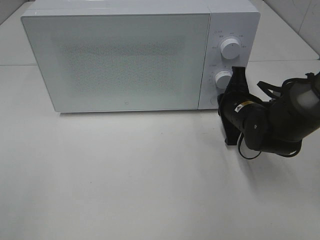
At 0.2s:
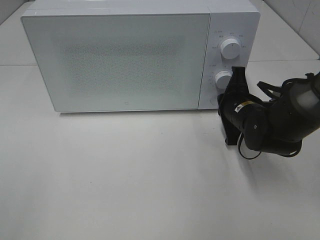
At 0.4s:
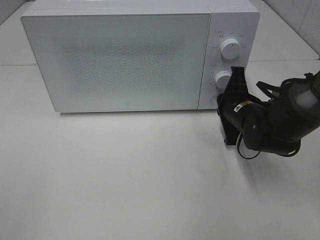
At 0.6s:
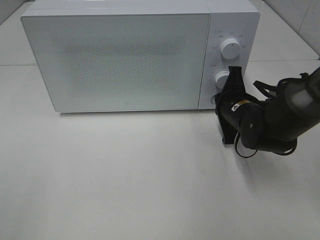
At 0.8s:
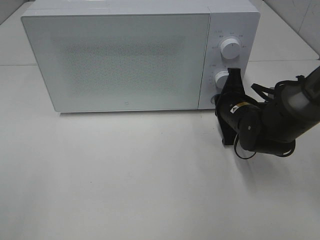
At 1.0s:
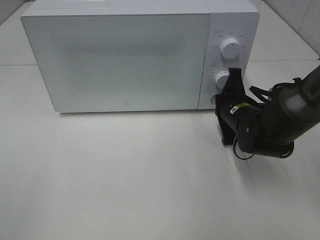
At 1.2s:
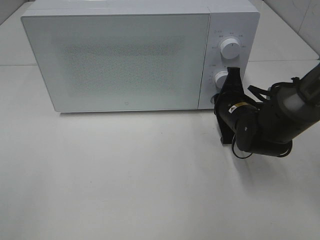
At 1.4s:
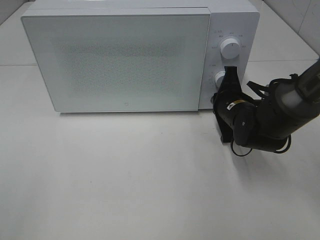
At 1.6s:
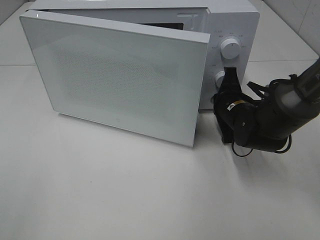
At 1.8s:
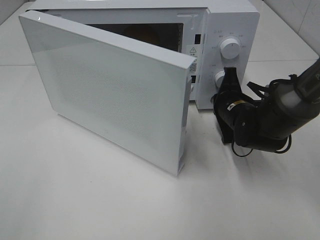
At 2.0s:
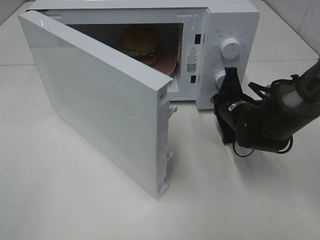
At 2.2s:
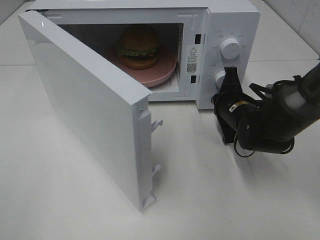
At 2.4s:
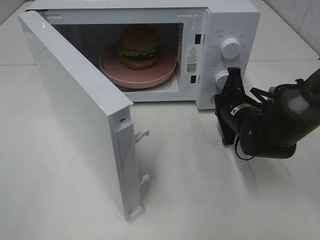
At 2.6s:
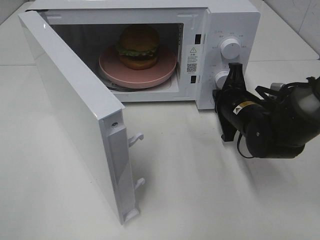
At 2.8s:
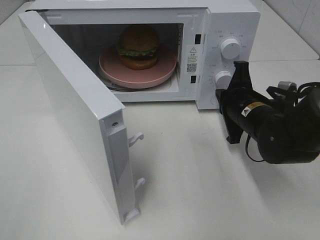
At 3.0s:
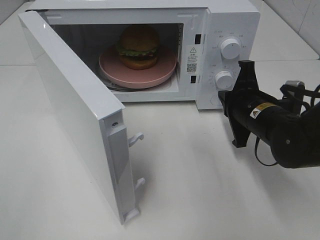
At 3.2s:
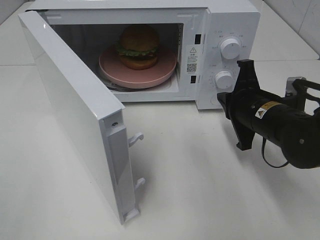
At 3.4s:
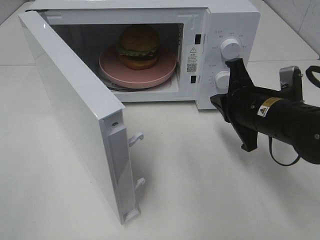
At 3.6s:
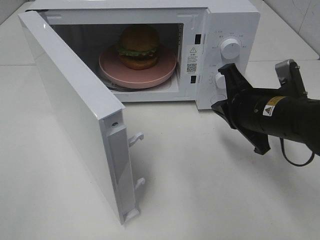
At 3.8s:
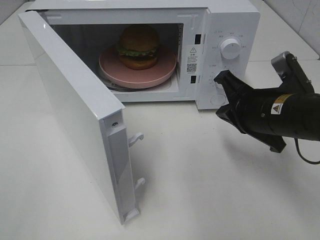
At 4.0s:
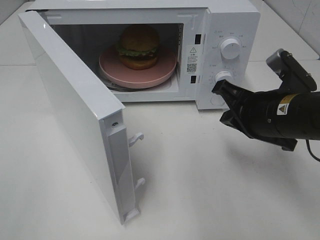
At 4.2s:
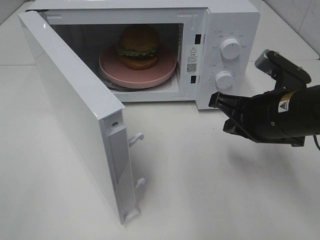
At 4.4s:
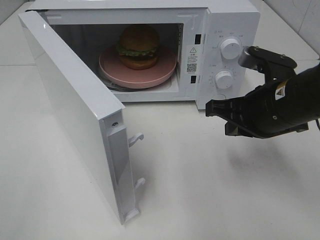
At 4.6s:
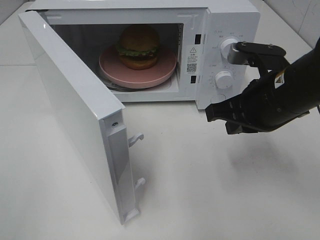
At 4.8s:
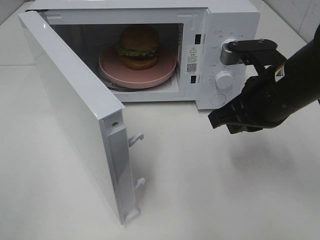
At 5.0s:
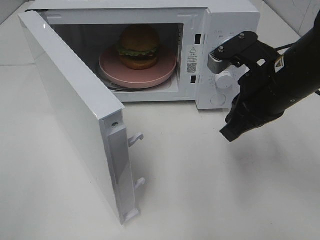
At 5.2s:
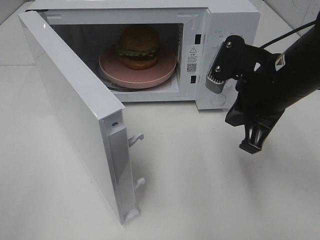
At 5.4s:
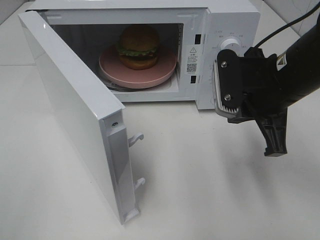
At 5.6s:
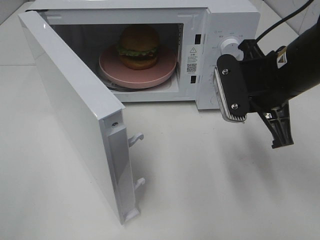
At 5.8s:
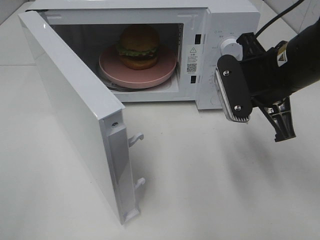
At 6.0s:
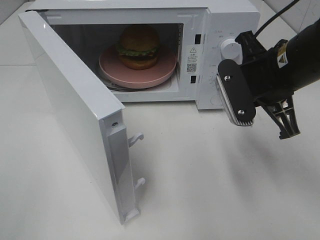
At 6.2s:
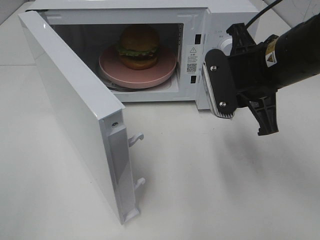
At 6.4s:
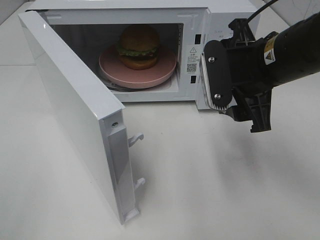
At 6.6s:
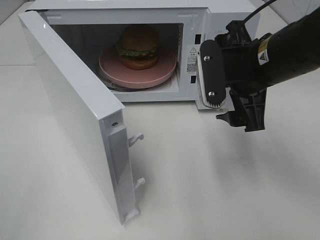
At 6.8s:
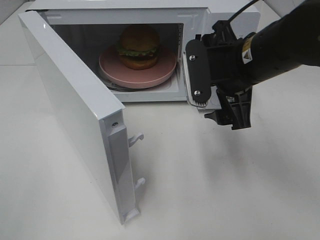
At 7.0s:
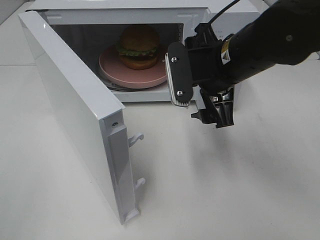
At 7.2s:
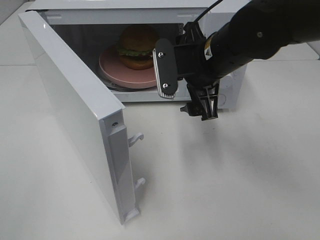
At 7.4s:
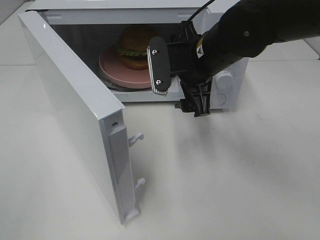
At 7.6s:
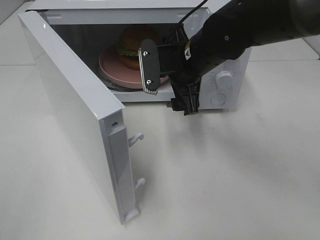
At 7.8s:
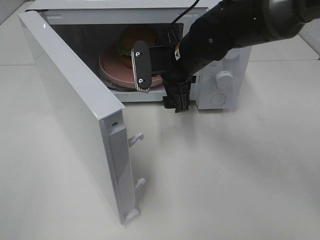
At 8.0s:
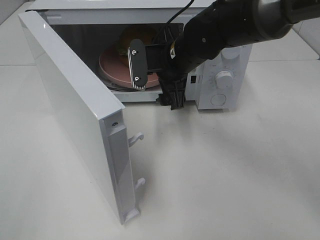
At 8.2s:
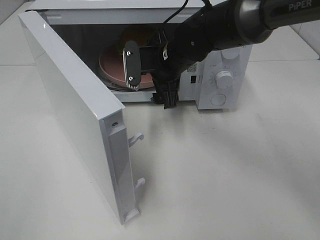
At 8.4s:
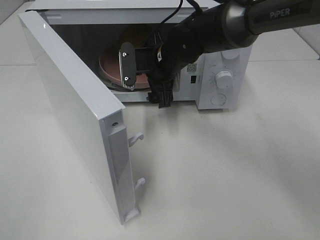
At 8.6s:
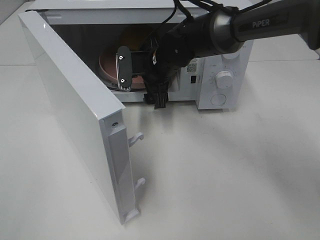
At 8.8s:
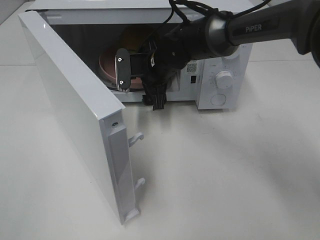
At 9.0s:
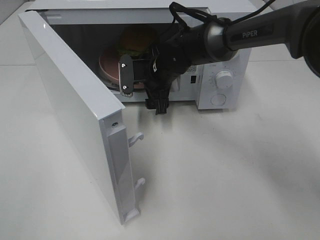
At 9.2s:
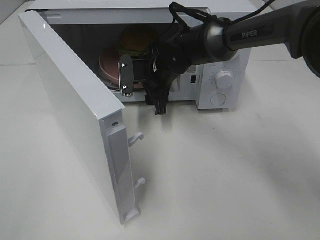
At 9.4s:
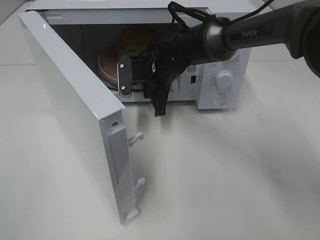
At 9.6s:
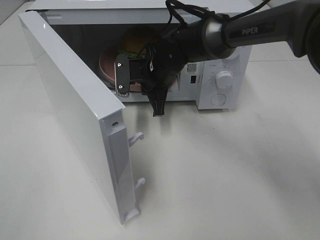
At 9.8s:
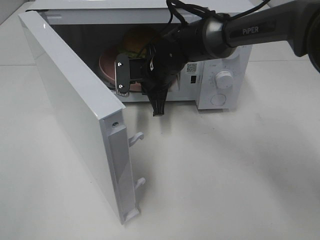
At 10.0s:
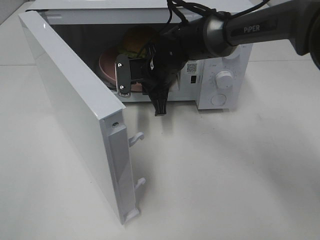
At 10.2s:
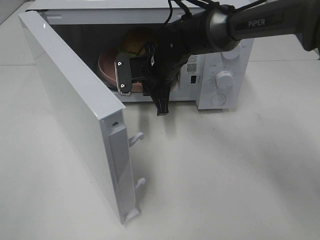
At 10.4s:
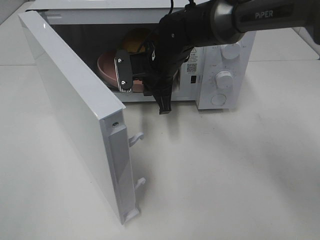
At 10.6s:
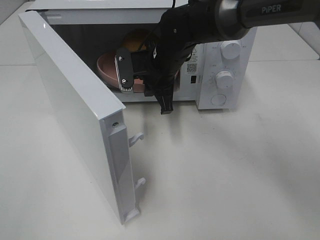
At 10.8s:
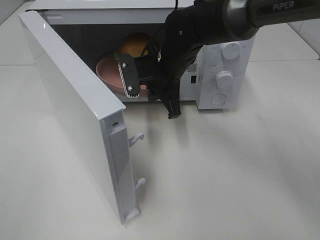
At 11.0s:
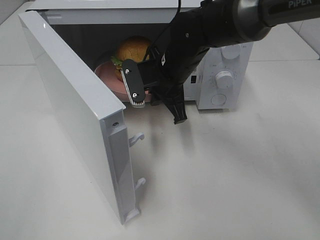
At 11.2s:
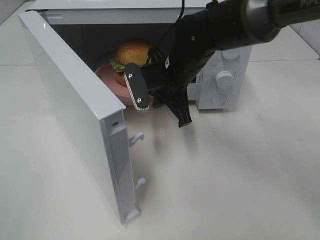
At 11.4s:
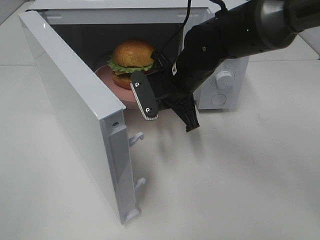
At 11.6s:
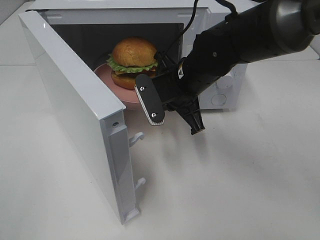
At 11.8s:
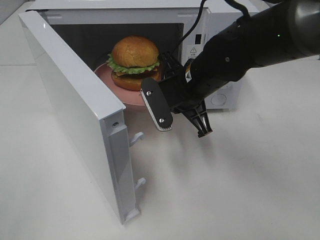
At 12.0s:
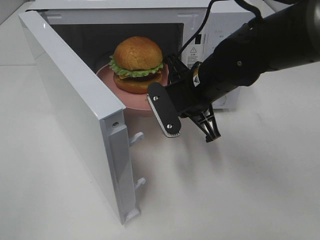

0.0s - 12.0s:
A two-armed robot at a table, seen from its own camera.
Task of the whole recording: Heat the burger.
Step, 0.0s - 2.6s: Right hand: press the switch.
Step, 2.8s - 9.6s: Right hand: grab the plate with the hamburger.
0.0s - 1.6s: The grippers make only small movements.
1.6s - 3.0s: The right gripper is displaced backward by some 5 cm.
3.0s - 4.4s: The right gripper is displaced upward by roughly 5 cm.
6.0s - 7.6s: The right gripper moves to the left and forward, roughly 15 cm, and opens up.
7.6s - 9.0s: The right gripper travels forward and downward by some 10 cm.
9.0s - 10.4s: The right gripper closes.
10.4s - 12.0s: The right gripper goes some 10 cm backward and to the right.

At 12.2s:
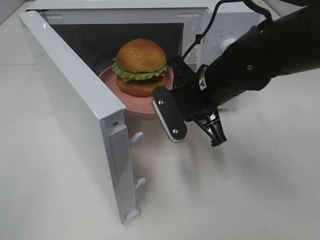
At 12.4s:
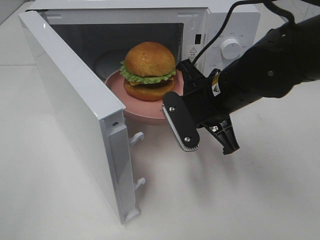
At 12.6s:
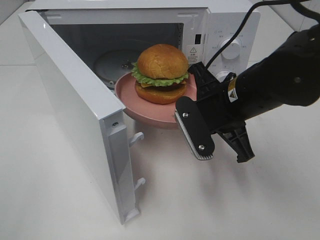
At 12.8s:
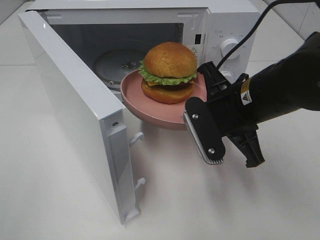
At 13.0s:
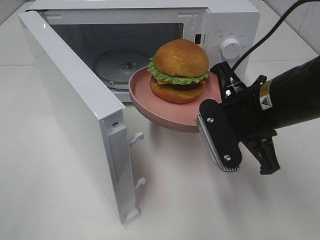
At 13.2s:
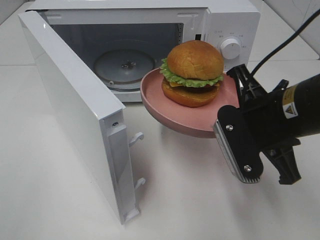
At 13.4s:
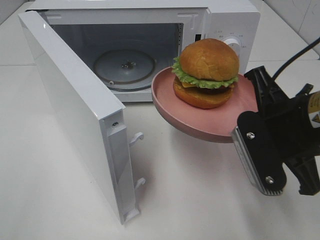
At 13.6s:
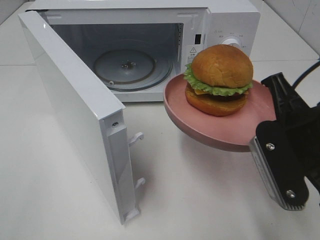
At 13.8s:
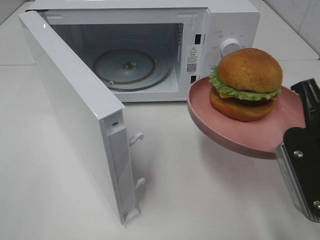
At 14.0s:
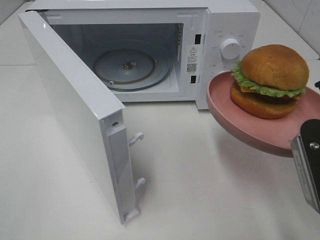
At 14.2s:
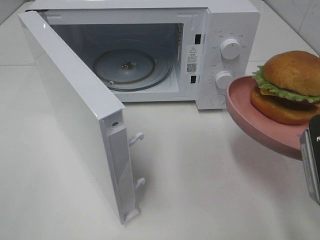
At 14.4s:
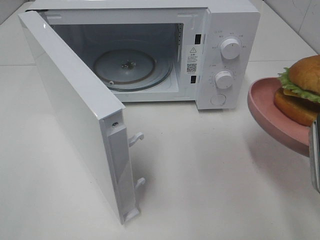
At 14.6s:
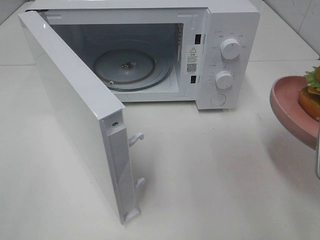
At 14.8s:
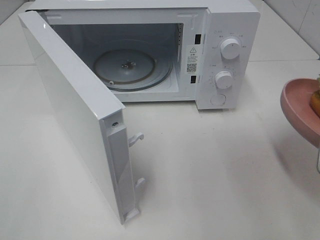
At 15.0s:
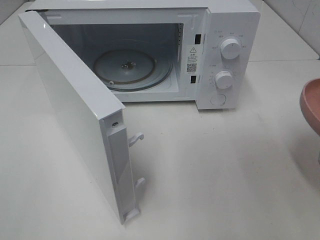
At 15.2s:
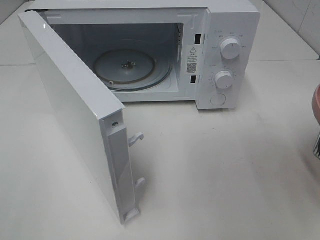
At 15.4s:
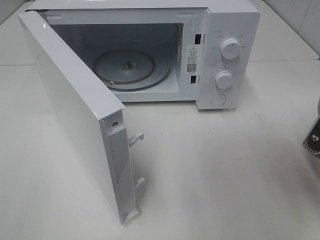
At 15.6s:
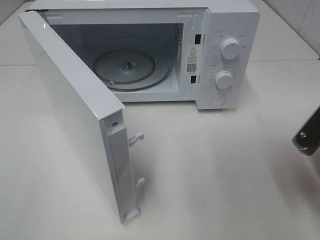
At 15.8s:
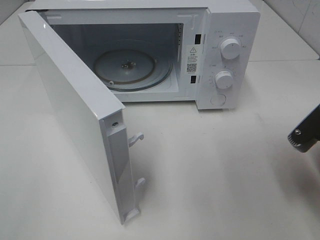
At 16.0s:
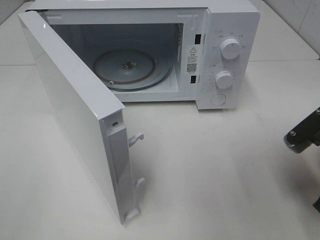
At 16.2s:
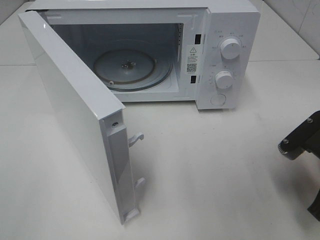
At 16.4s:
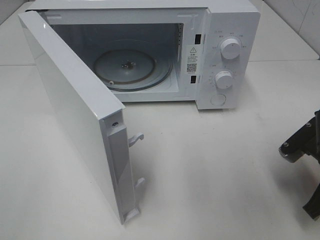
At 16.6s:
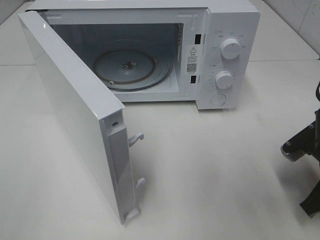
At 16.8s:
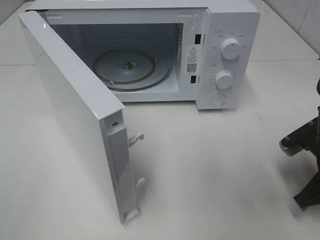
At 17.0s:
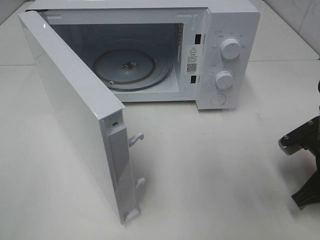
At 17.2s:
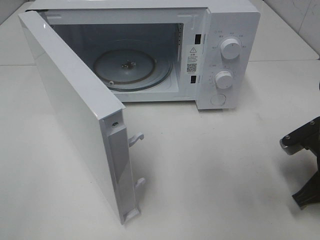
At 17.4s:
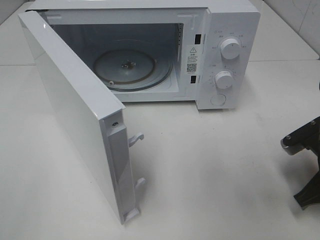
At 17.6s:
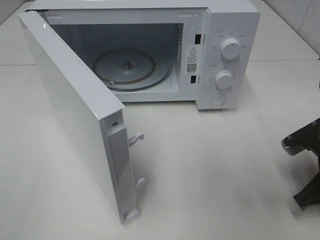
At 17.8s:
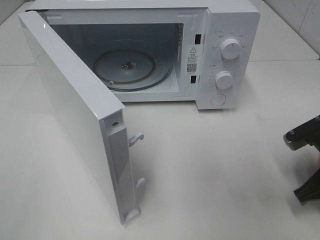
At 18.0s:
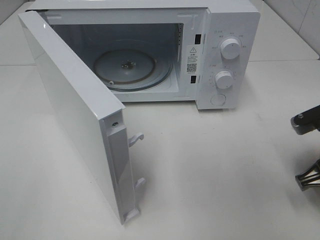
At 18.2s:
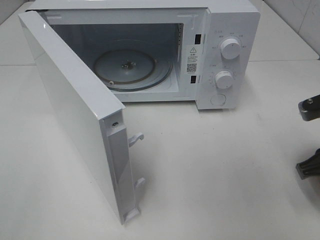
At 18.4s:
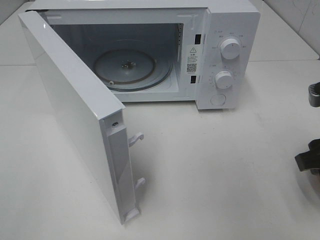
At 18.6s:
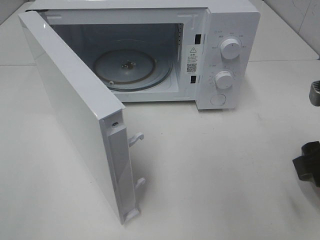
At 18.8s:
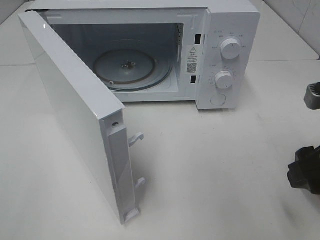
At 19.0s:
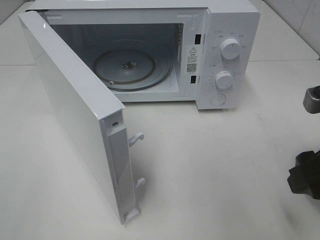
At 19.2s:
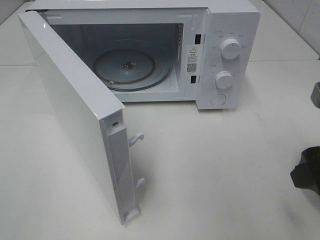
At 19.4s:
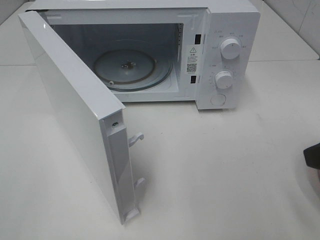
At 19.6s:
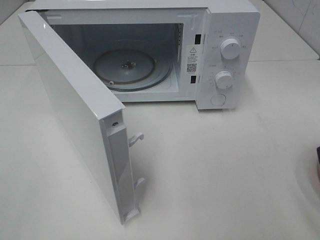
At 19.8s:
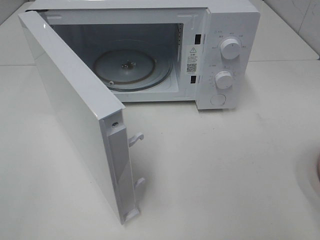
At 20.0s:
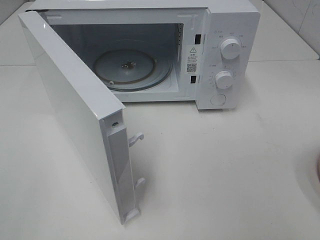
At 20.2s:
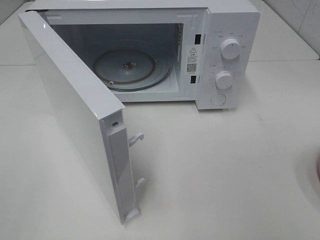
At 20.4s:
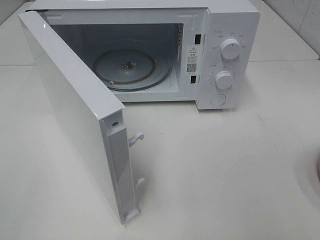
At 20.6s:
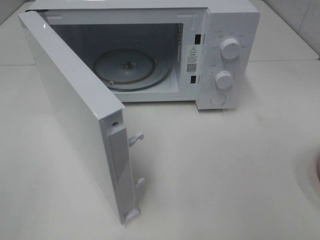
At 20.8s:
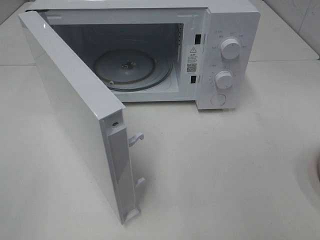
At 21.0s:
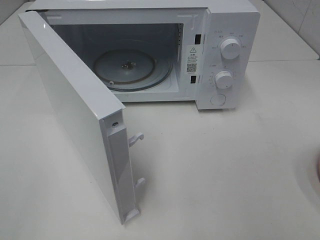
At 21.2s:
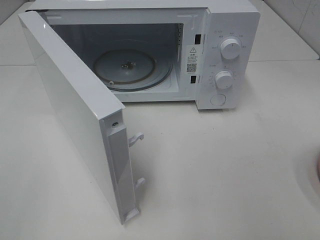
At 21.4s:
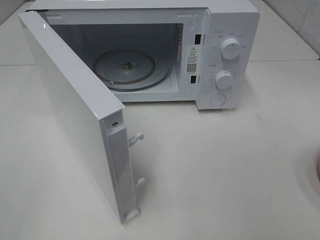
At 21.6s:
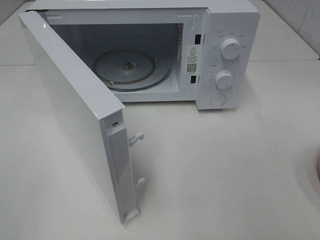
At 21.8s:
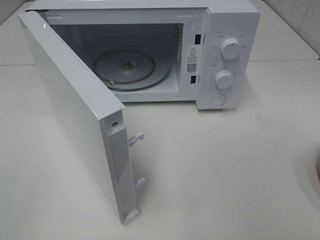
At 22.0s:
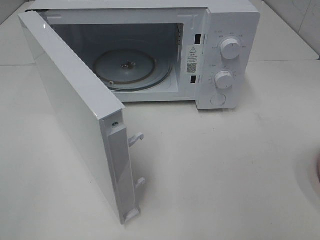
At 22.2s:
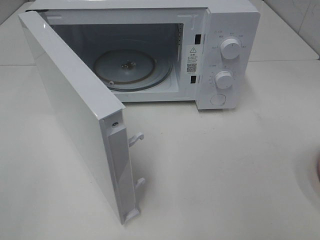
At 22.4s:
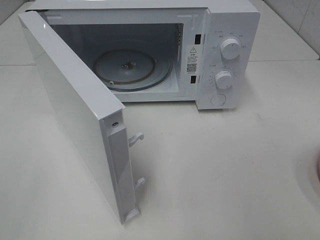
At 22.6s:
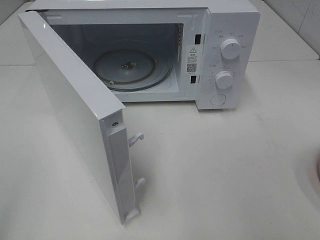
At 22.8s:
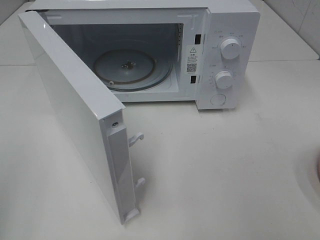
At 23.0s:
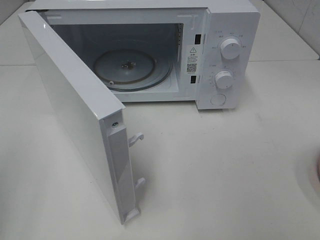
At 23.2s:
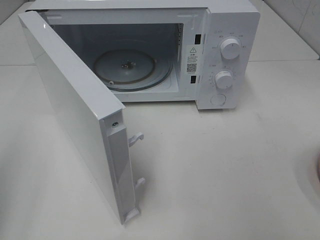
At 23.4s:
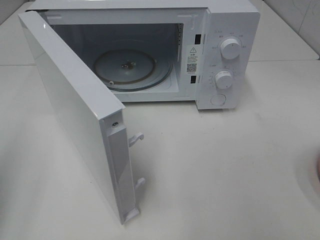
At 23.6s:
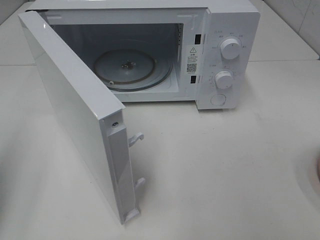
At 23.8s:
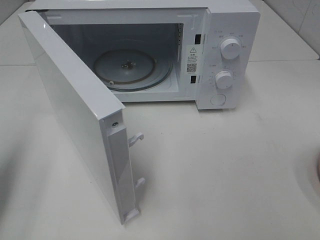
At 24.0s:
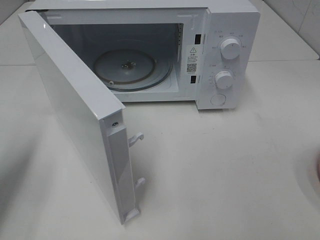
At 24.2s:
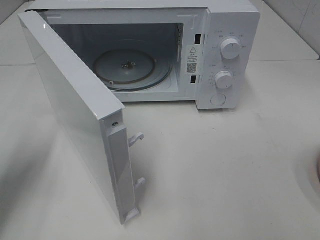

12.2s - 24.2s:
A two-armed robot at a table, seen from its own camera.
Task of the whole recording: Heat the burger.
Step, 12.2s - 17.4s: Right hand: place the plate on the table.
12.2s - 13.8s: The right gripper shifts approximately 20 cm backward and to the right.
15.2s - 16.6s: The right gripper travels downward and forward by about 10 cm.
16.6s - 18.2s: The right gripper heads upward, covering some 5 cm, and opens.
18.2s - 19.8s: The right gripper moves backward and upward, approximately 15 cm.
22.6s - 24.2s: The left gripper shifts roughly 25 cm forward and downward, and closes its fingers.
